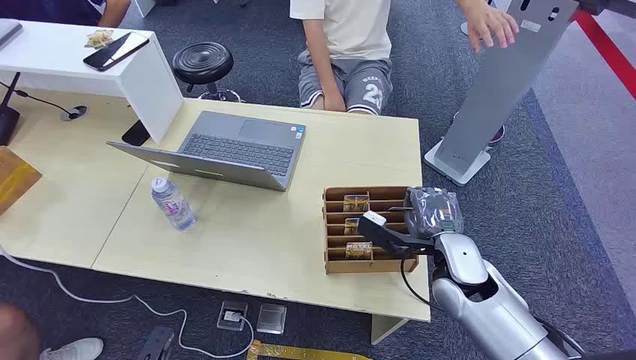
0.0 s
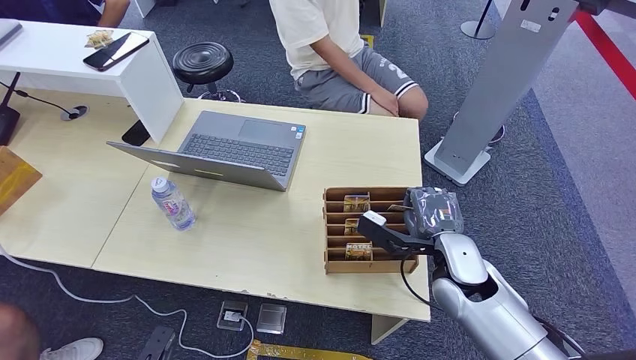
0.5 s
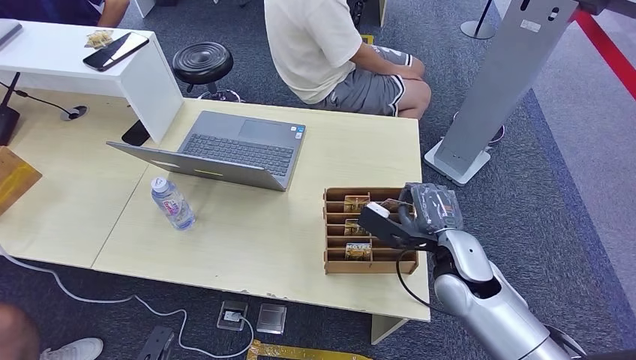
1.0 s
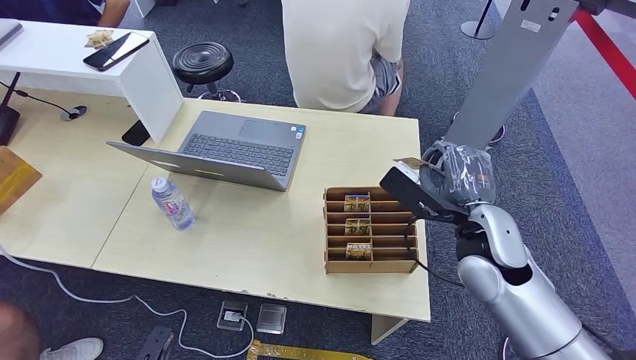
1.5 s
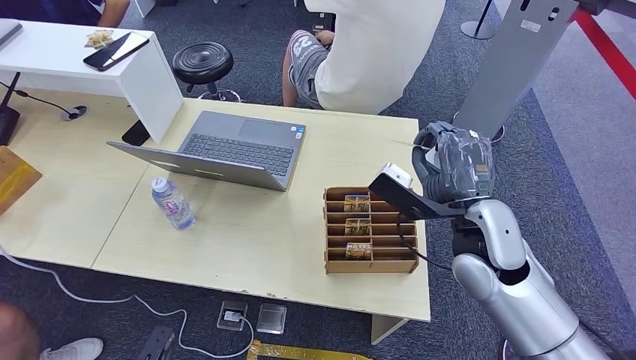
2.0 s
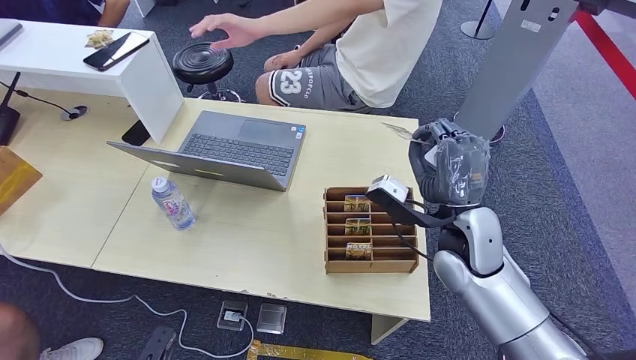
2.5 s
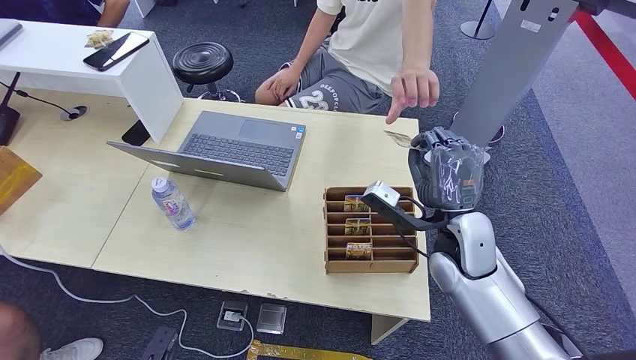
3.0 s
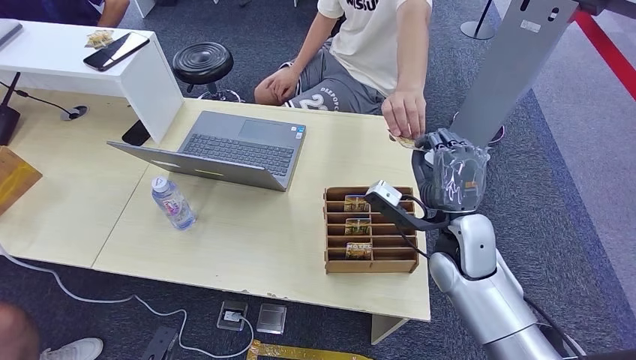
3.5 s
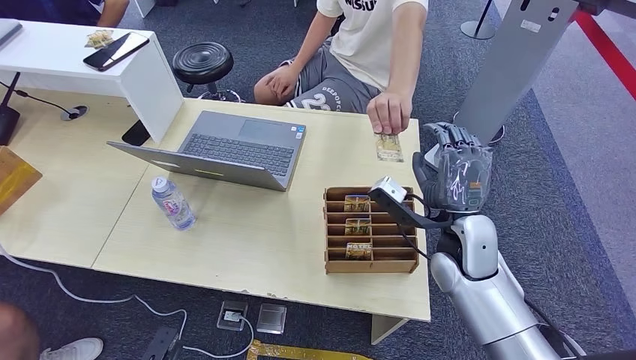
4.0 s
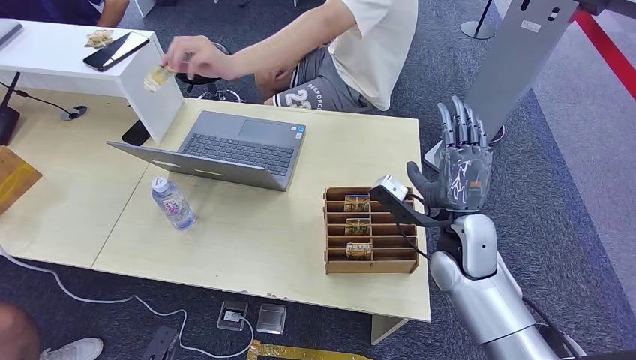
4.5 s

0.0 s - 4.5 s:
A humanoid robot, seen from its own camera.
Step, 0.0 s - 1.0 s: Pick up the key card from the card box.
Step, 2.0 s - 4.5 s: Hand the key card to the target.
2.0 s - 4.5 s: The right hand travels downward by approximately 5 cm.

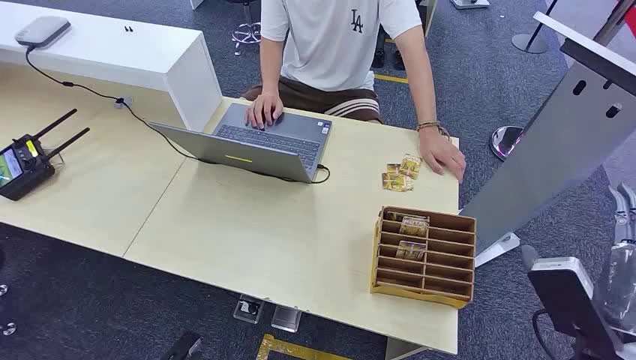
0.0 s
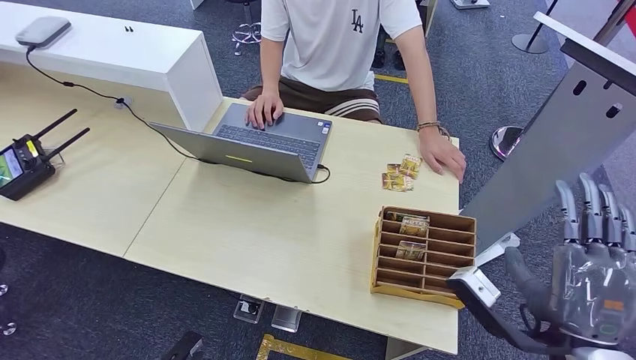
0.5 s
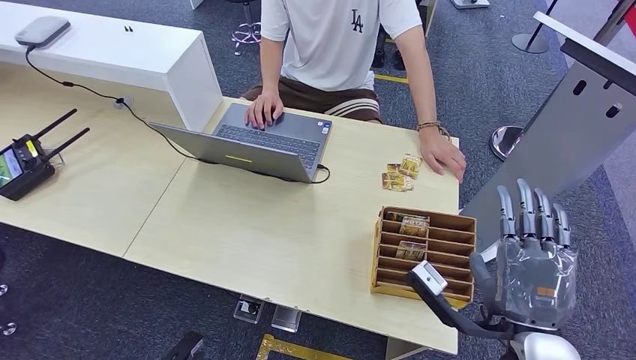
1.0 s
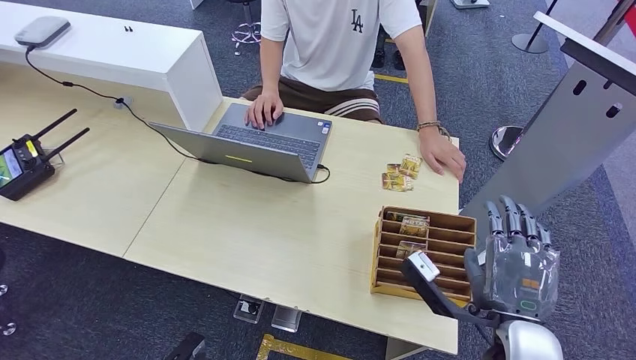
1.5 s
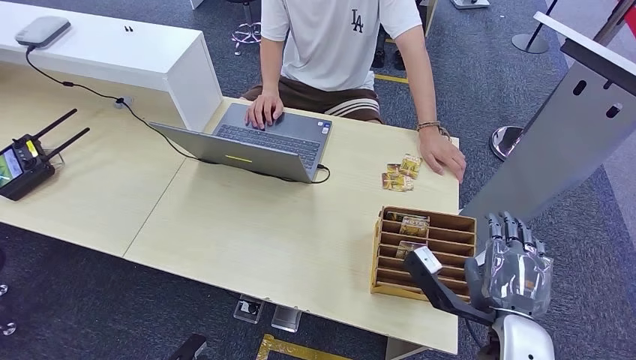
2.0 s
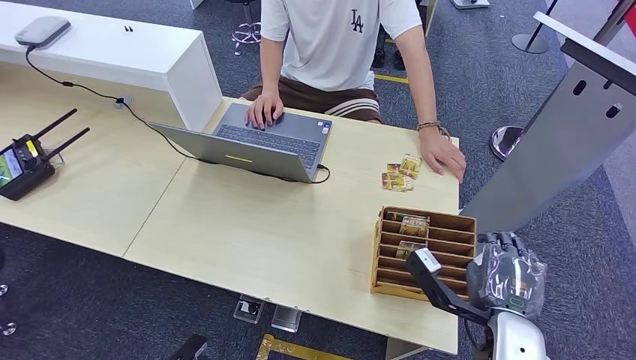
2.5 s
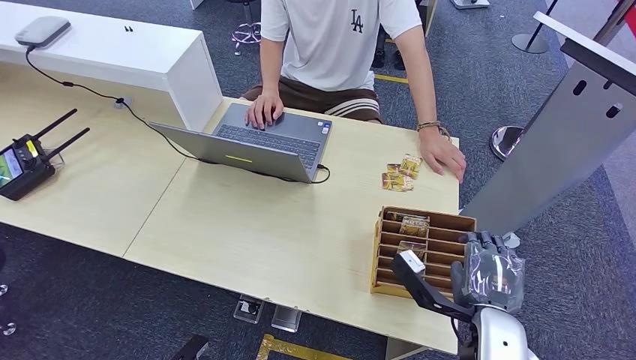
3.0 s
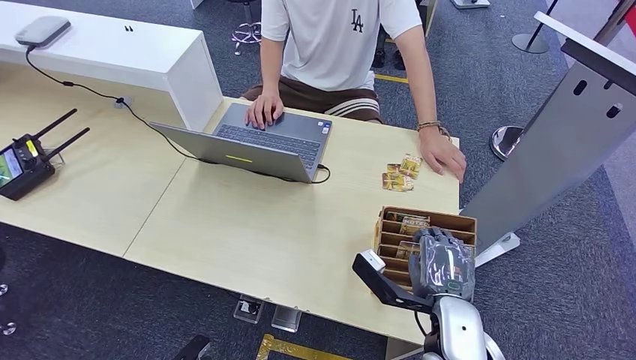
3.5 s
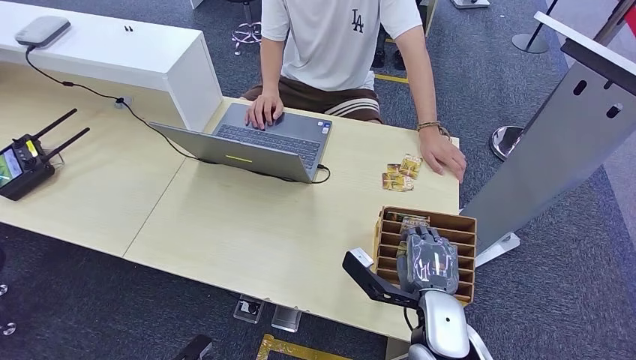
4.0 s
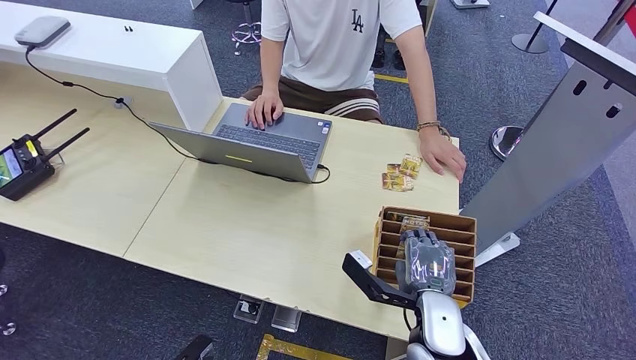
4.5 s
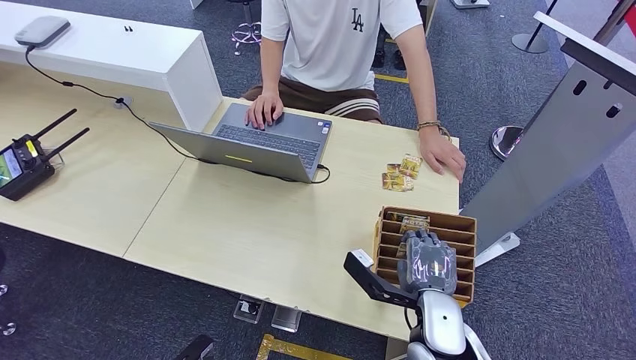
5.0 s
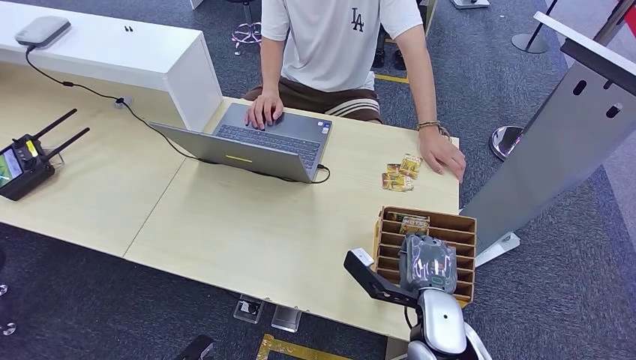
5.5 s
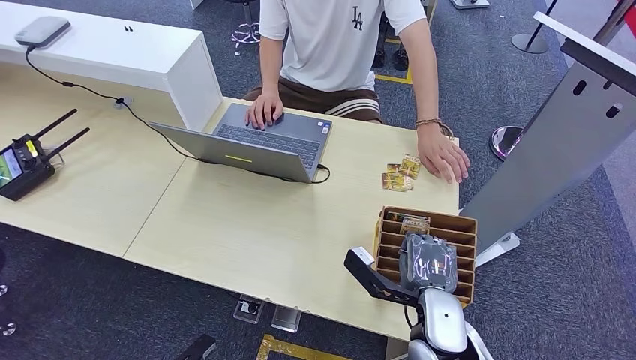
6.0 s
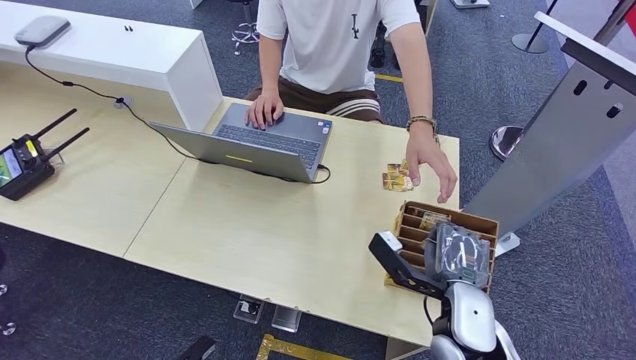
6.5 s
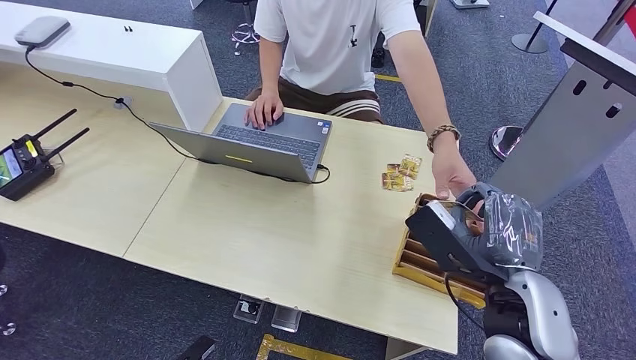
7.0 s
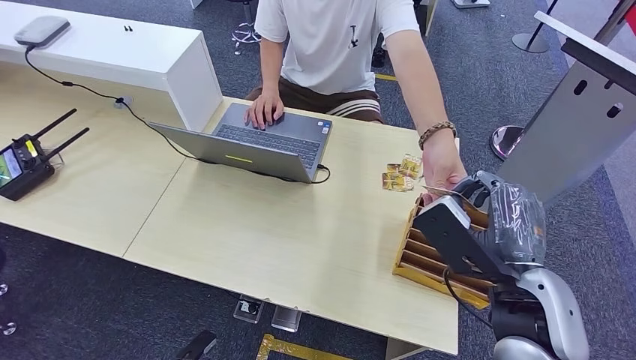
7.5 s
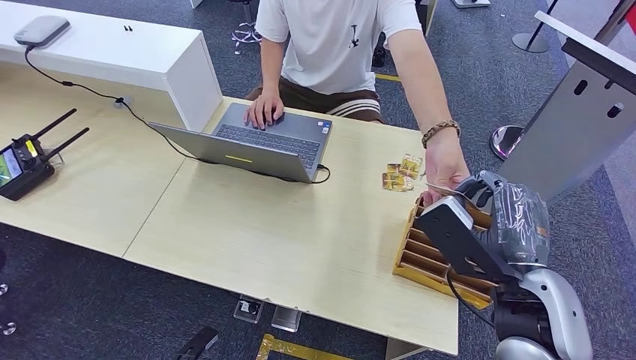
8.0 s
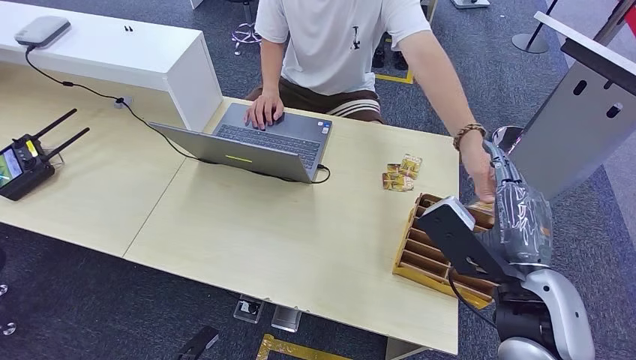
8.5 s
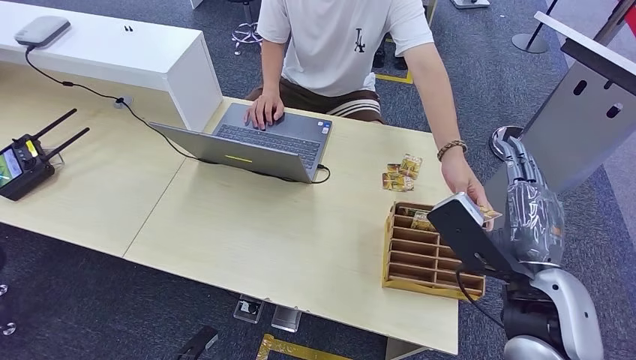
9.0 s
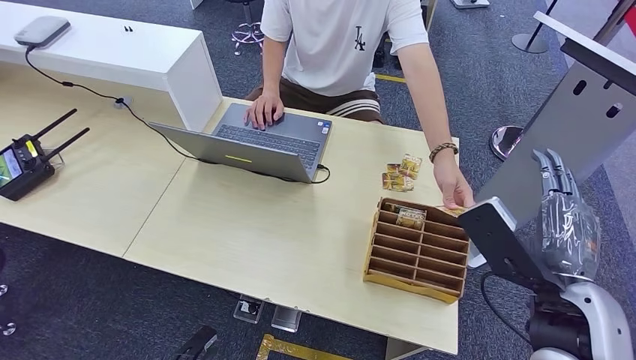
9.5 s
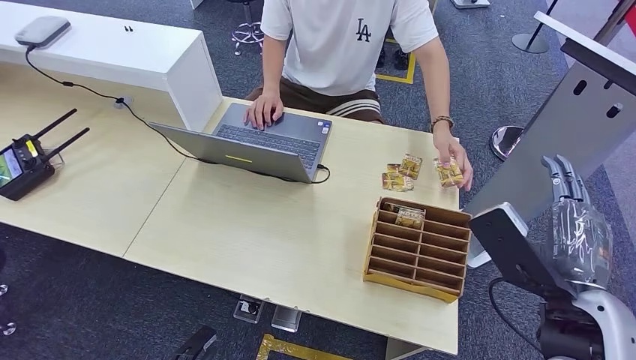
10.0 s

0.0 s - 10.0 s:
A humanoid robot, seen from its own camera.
Step, 0.0 s - 6.5 s: Pick up the key card from the card box.
Step, 7.0 s - 10.0 s: Hand the key card to the target.
2.0 s - 4.0 s: The right hand is displaced to the left and downward by roughly 10 cm.
4.0 s - 6.0 s: Neither hand changes place.
6.0 s - 8.0 s: The right hand heads upward and to the right, covering roughly 15 cm.
8.0 s - 10.0 s: The right hand shifts some 5 cm to the right.
